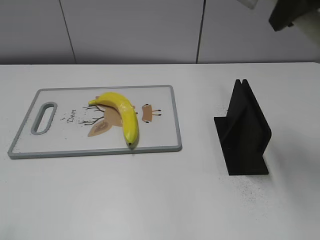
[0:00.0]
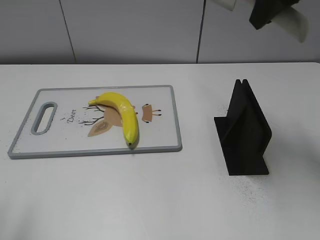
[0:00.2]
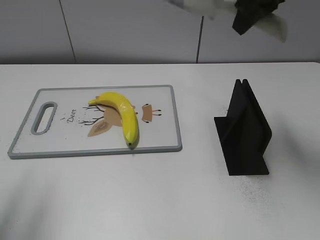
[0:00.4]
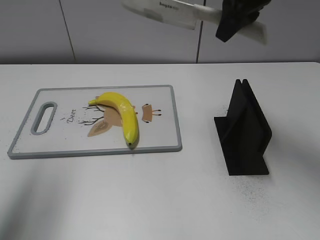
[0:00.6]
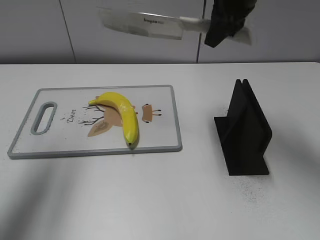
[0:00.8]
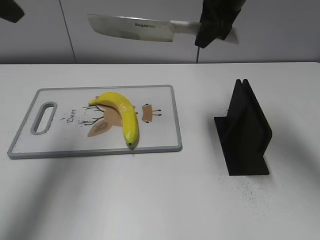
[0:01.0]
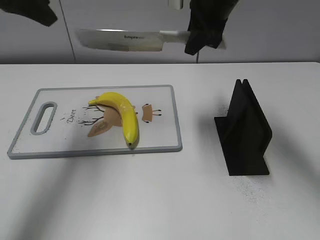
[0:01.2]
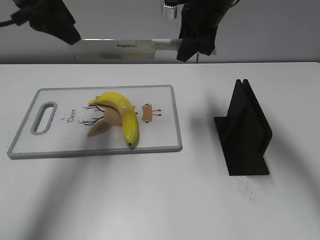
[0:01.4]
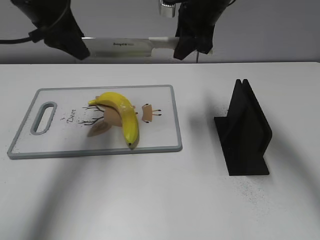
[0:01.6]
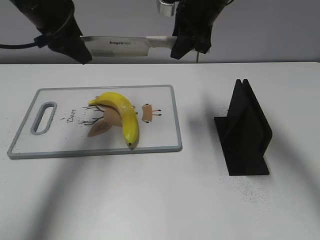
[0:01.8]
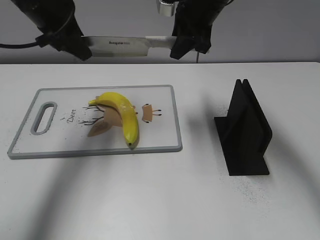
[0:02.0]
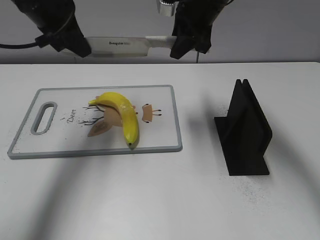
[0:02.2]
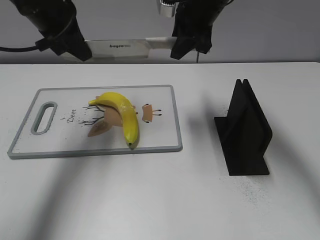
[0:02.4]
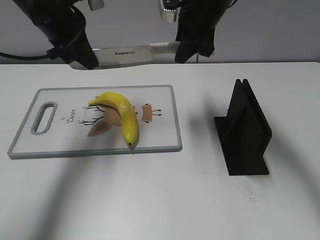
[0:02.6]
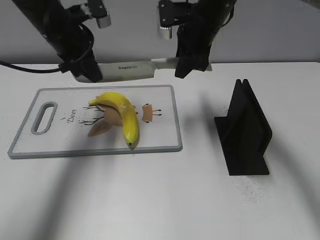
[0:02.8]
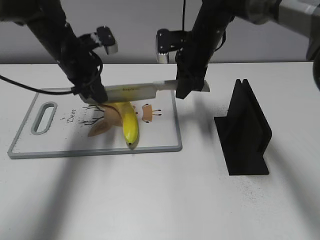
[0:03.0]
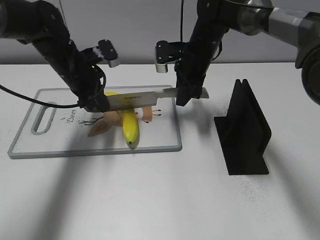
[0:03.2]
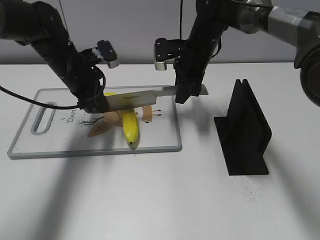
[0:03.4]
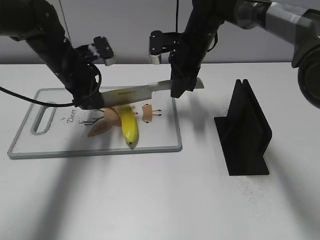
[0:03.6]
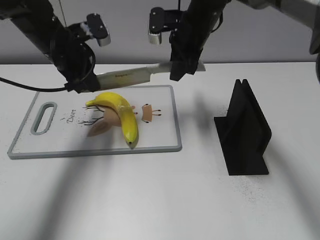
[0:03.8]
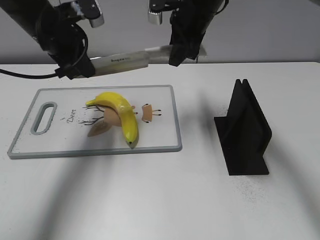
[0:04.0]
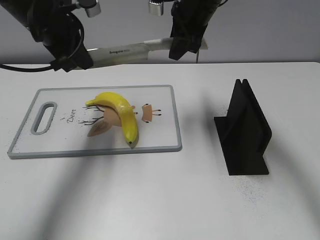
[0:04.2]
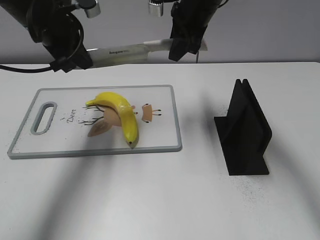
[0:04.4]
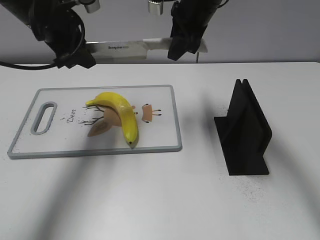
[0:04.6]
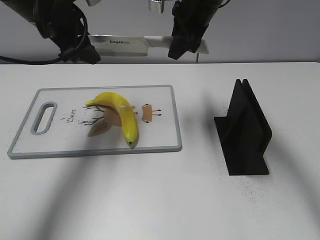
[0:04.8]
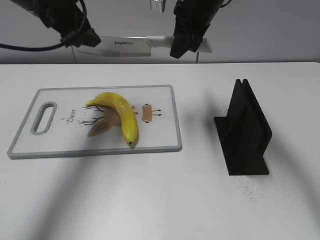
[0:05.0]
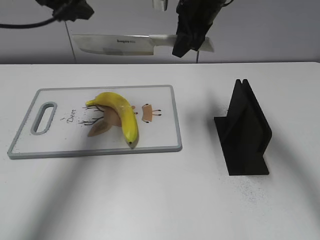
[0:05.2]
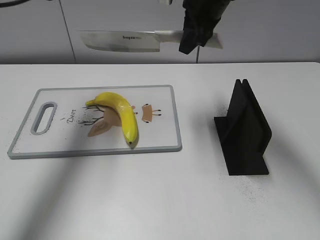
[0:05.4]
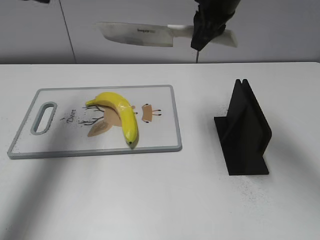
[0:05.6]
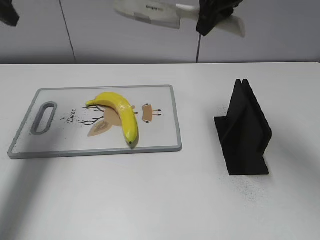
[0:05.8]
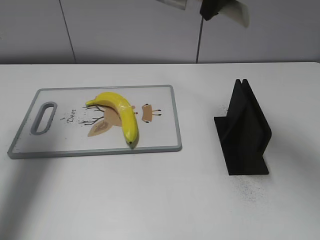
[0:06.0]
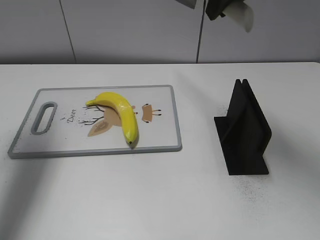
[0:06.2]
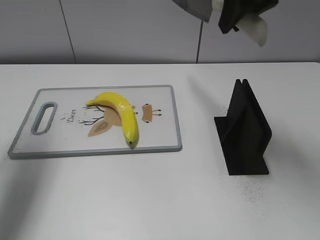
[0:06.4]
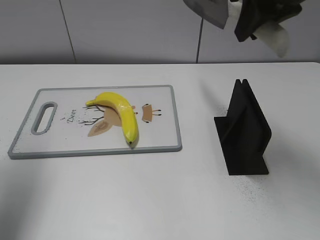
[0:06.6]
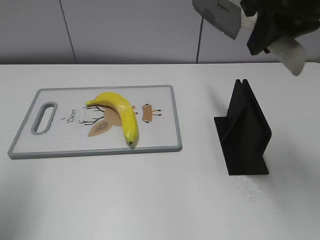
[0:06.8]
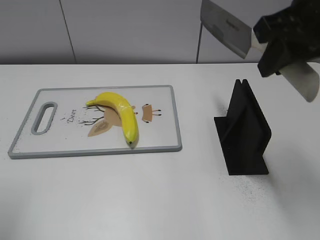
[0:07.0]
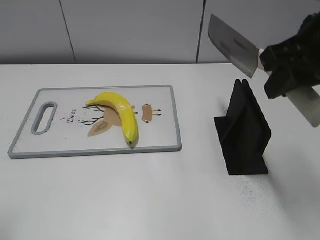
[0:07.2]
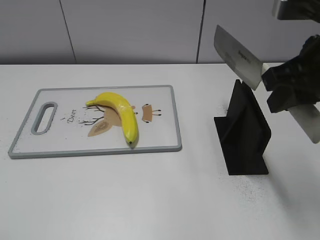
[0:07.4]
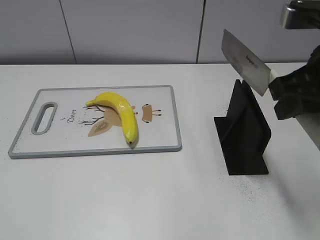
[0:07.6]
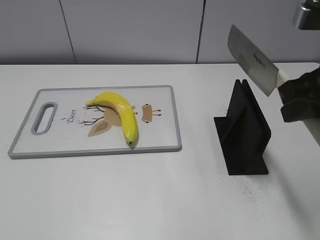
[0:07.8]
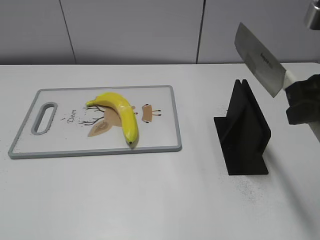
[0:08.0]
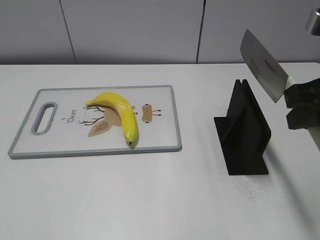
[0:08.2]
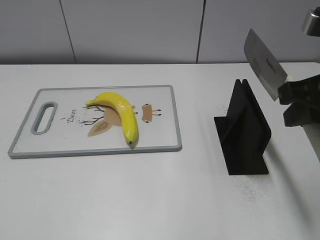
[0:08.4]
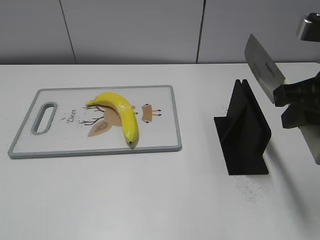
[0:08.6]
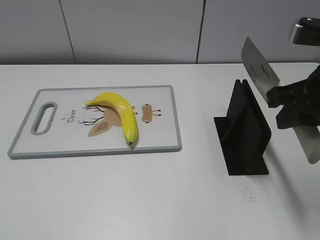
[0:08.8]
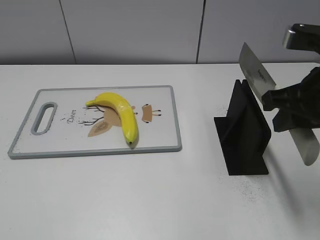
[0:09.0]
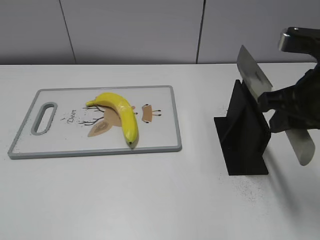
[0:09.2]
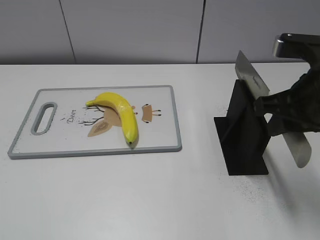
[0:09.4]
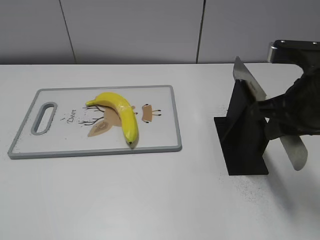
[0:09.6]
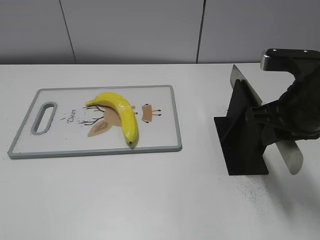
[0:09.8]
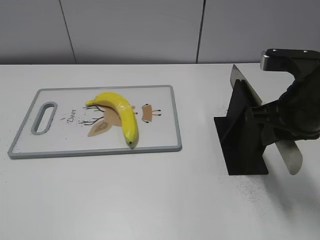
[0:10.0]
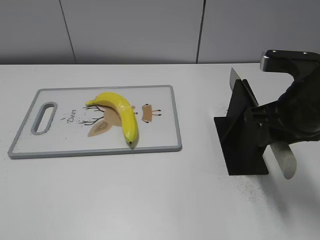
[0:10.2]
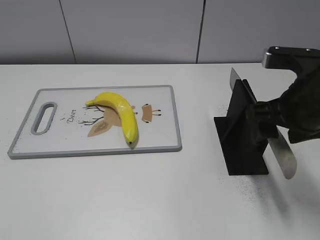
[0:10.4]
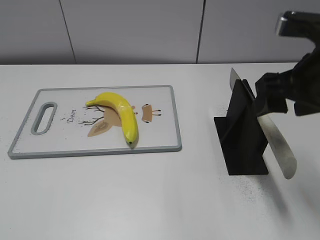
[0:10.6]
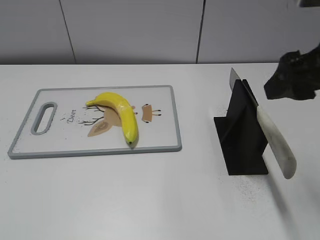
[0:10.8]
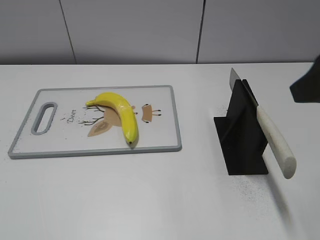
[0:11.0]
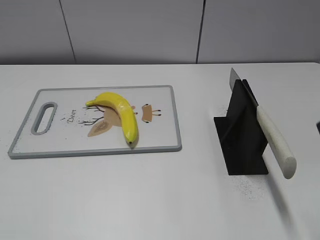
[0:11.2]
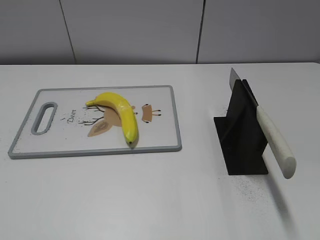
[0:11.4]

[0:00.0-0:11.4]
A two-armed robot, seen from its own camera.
Task of the whole recording: cut plastic banana.
Step, 0:00.0 to 0:04.6: Hold the blade with your left hand.
Step, 0:04.8 to 0:06.0: Cut the banana with your right hand.
Step, 0:06.4 to 0:07.8: Secure the blade with your left hand.
0:00.0 to 0:01.4: The left gripper shifts approximately 30 cm forward. The right gripper moves forward, downward and to the left, about 20 cm.
0:01.4 to 0:02.8: The left gripper heads downward, covering about 10 cm, and closes.
0:02.8 to 0:04.2: The left gripper moves about 10 cm downward and comes back.
0:04.2 to 0:05.6: The left gripper shifts approximately 10 cm to the left and upward, and opens its fingers, while the right gripper moves roughly 5 cm.
0:05.6 to 0:07.2: The left gripper is displaced backward by about 30 cm. Meanwhile the right gripper is displaced backward and to the right by roughly 20 cm.
0:07.2 to 0:08.6: The right gripper shifts by roughly 5 cm.
0:08.6 to 0:10.0: The right gripper goes about 5 cm downward.
0:10.0 to 0:11.4: The right gripper travels backward, upward and to the right by roughly 15 cm, and opens its fingers.
